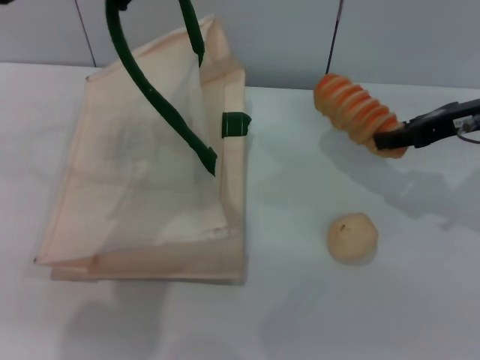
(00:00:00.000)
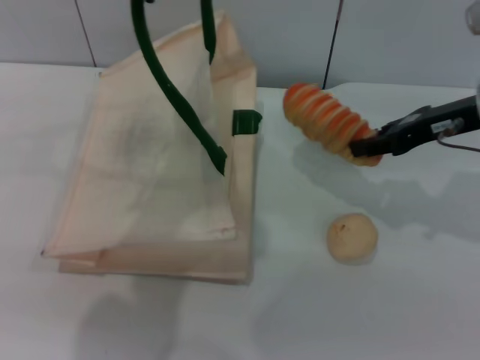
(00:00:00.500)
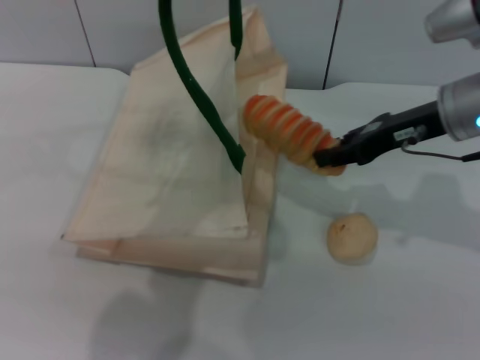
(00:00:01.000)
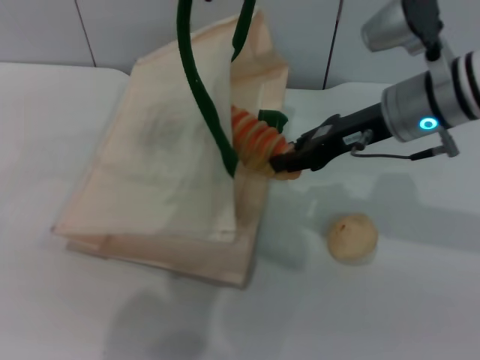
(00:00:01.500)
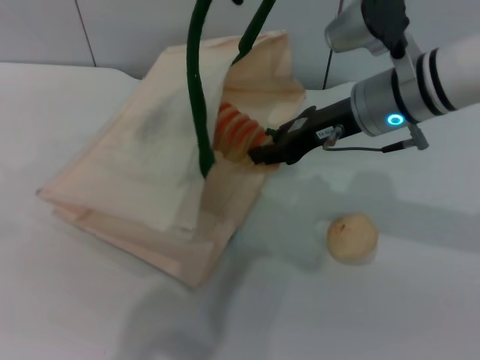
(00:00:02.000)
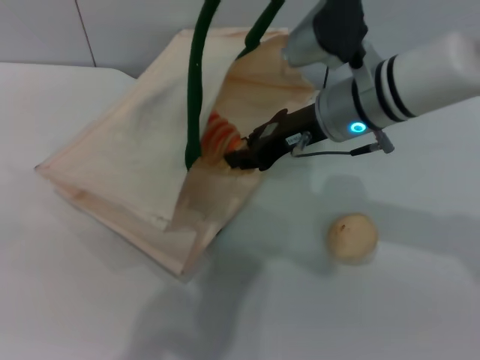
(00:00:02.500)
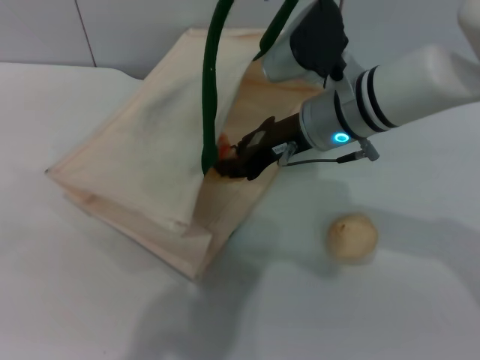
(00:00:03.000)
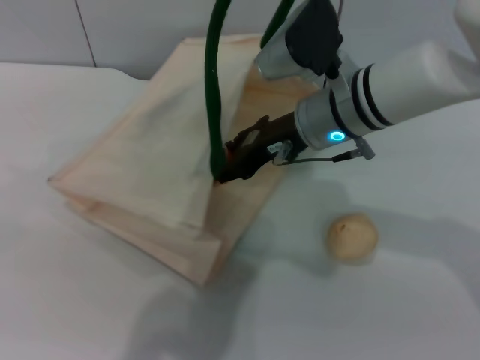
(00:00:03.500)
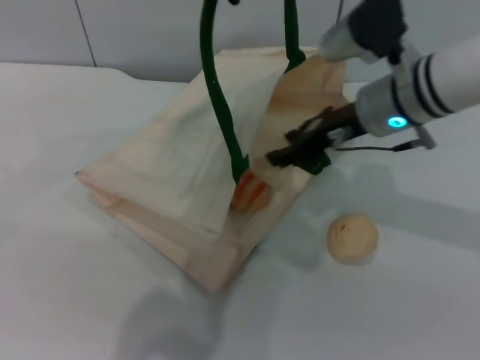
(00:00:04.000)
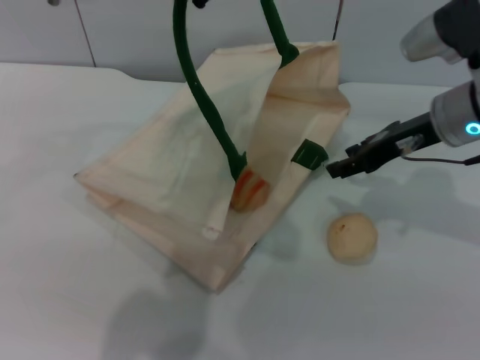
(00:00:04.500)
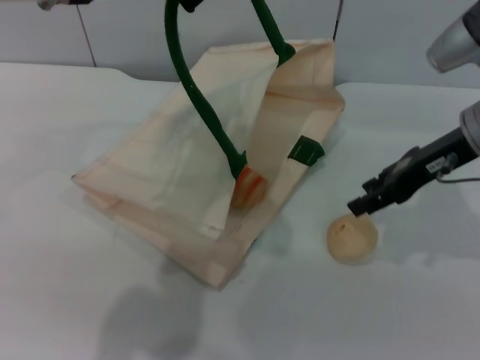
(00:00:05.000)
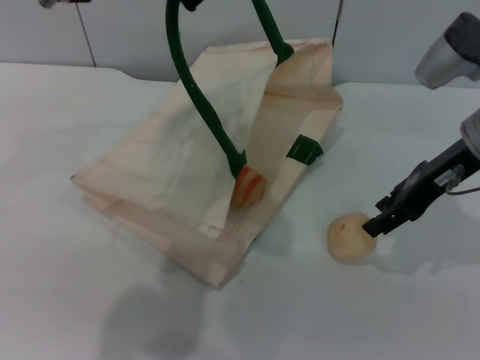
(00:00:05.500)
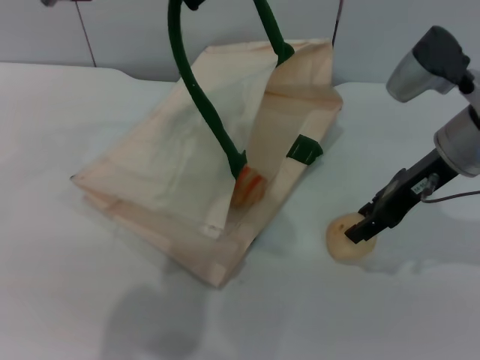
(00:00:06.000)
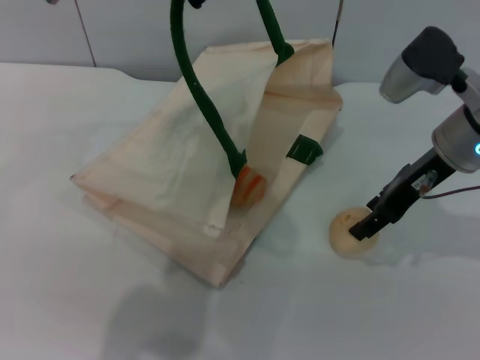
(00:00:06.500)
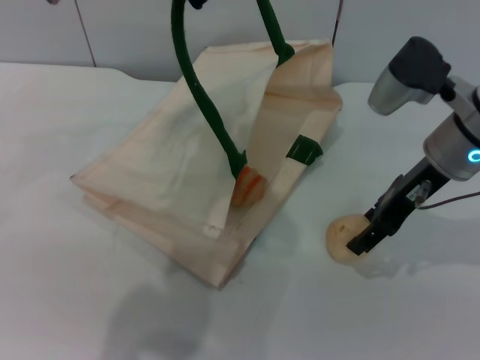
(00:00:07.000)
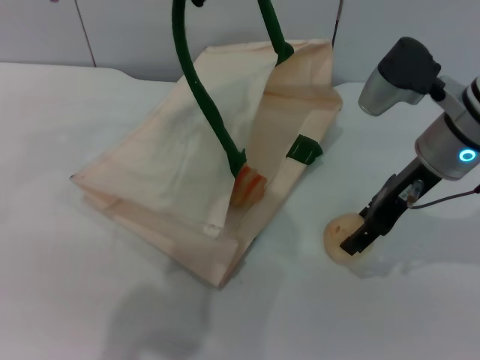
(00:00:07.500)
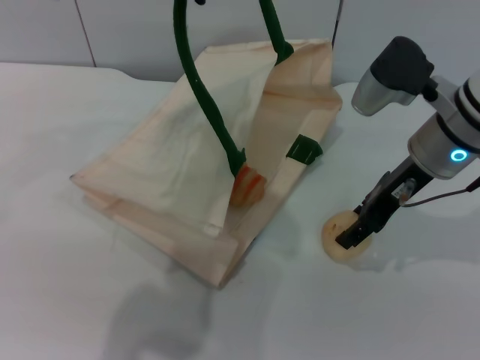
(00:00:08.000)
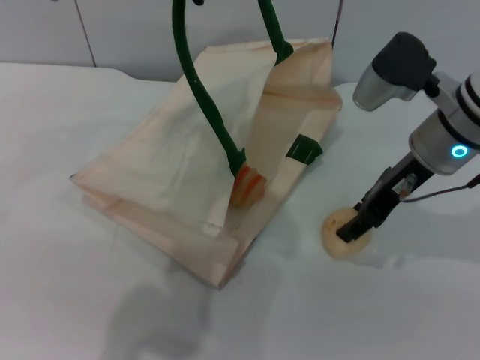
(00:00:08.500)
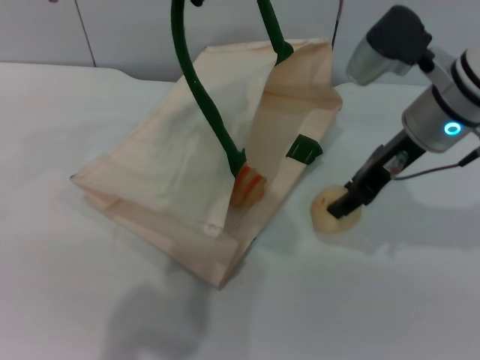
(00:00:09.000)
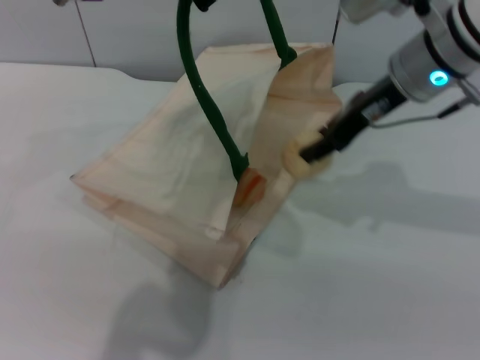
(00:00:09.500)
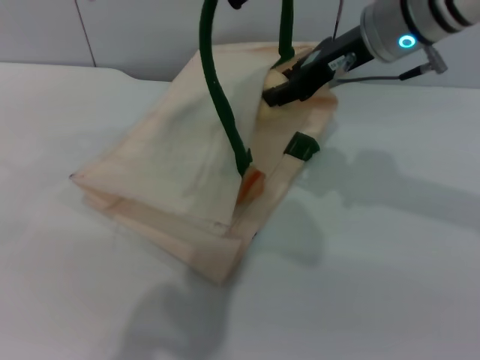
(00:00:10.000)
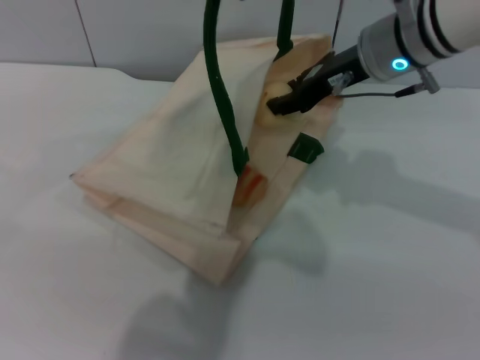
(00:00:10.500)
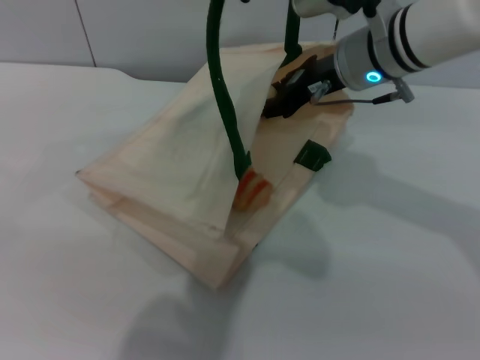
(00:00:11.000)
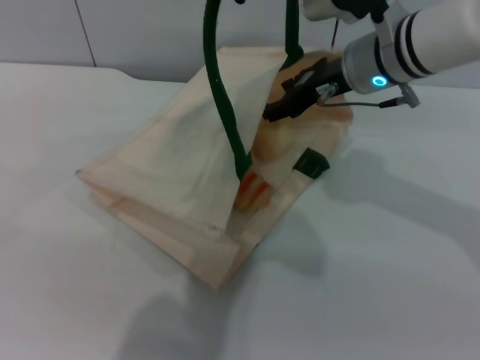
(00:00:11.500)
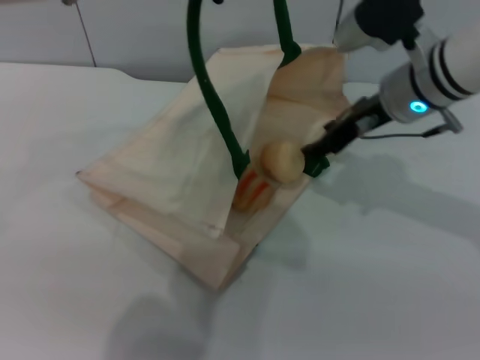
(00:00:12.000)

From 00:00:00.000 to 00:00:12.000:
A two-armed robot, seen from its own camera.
Task of the whole recording: pick up the bread and egg yolk pastry from the table and place it in the white handbag.
Step, from 00:00:00.000 to 00:00:04.000: Place the bread into the woven bag with the right gripper.
Step, from 00:00:05.000 to 00:00:09.000: Pick up the egg yolk pastry with the right gripper.
From 00:00:00.000 to 00:00:02.000: The left gripper travels to the right by about 10 cm. The right gripper is displaced to the left by some 15 cm.
From 00:00:02.000 to 00:00:04.000: The right gripper opens.
From 00:00:04.000 to 00:00:06.000: The right gripper heads to the right, covering approximately 5 cm.
From 00:00:06.000 to 00:00:08.000: The grippers move only a little.
From 00:00:08.000 to 00:00:10.000: The right gripper heads upward and forward, covering about 10 cm, and closes up.
From 00:00:10.000 to 00:00:12.000: The right gripper is displaced downward by about 5 cm, and opens.

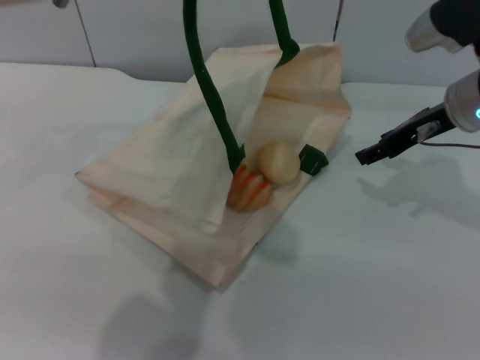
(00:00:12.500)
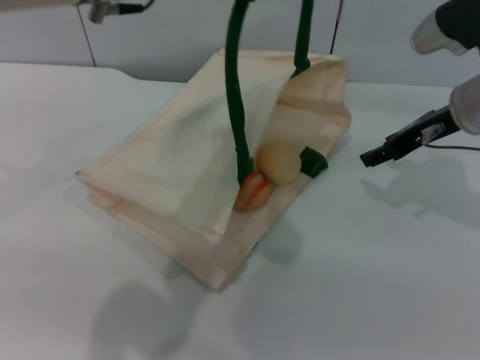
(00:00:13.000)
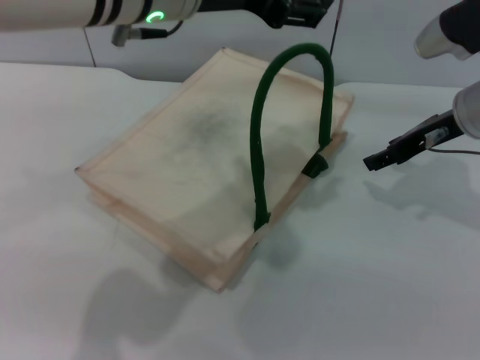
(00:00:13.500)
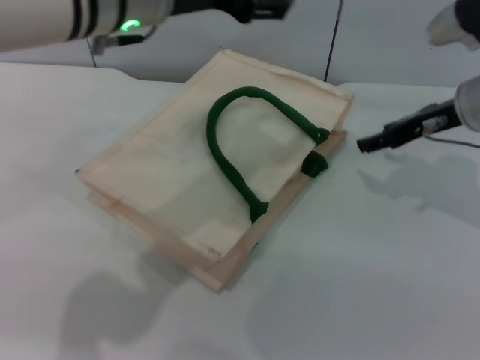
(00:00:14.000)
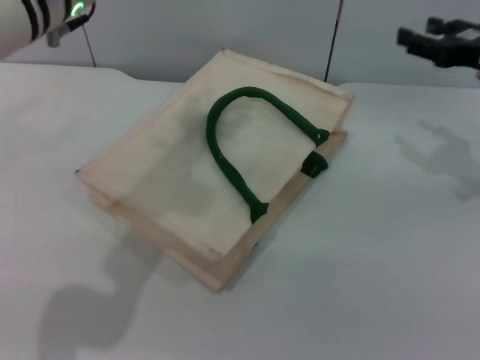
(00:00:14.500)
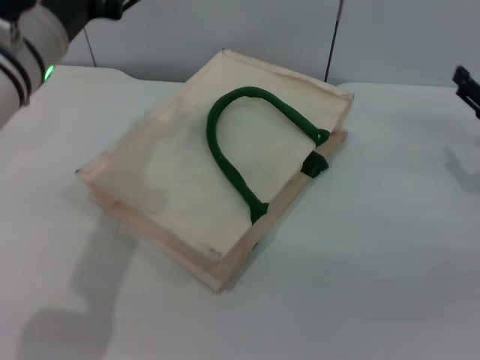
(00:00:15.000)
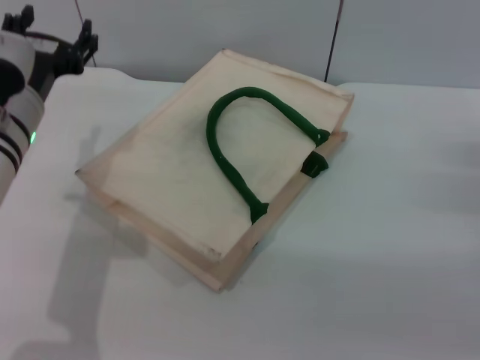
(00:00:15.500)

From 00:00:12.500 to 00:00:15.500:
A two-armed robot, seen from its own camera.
Task of the whole recording: pick up the bread and egg yolk pastry from the table and place it in the white handbag.
Step, from 00:00:12.500 to 00:00:13.500: Lower the woven bag with the left gripper to close it.
From 00:00:12.500 to 00:00:14.000: The left gripper opens up.
From 00:00:14.000 to 00:00:15.500: The left gripper is displaced downward and to the left by some 15 cm; the right gripper heads backward, downward and to the right, covering about 20 cm.
